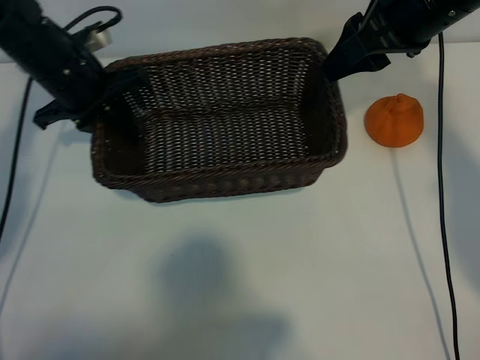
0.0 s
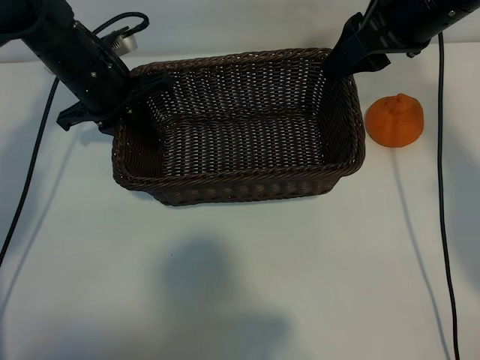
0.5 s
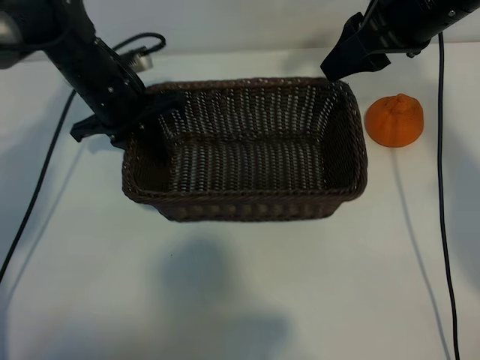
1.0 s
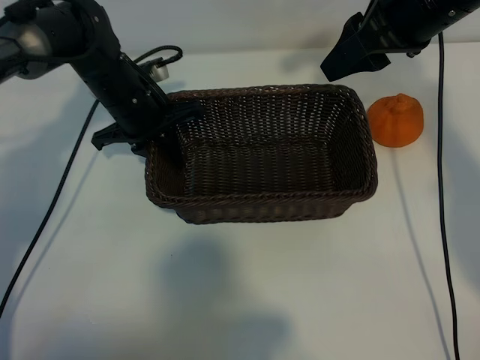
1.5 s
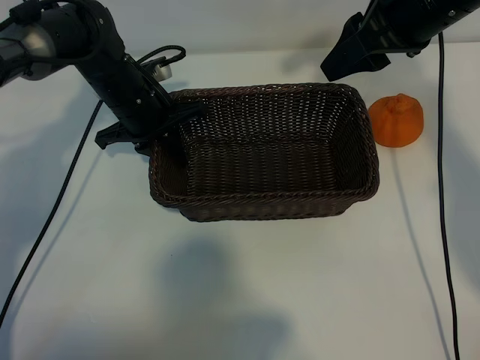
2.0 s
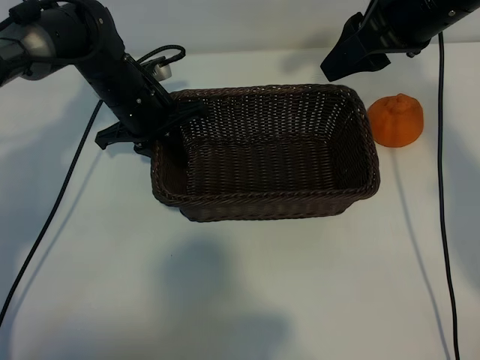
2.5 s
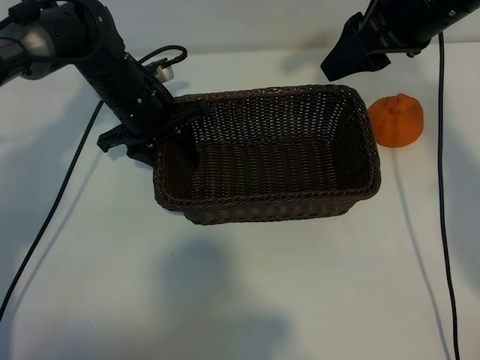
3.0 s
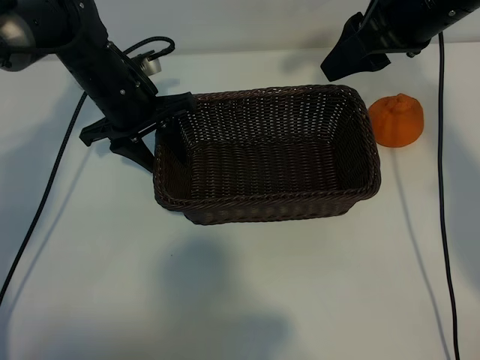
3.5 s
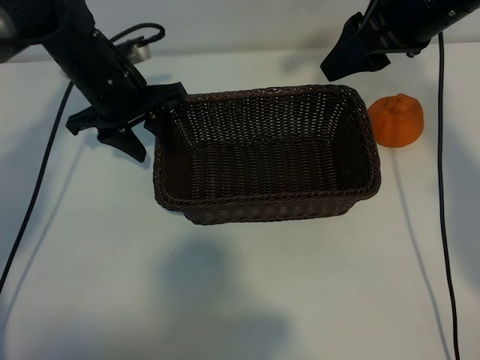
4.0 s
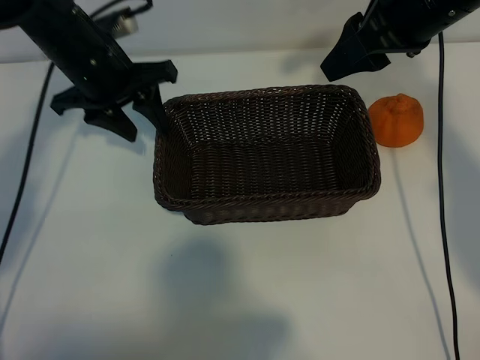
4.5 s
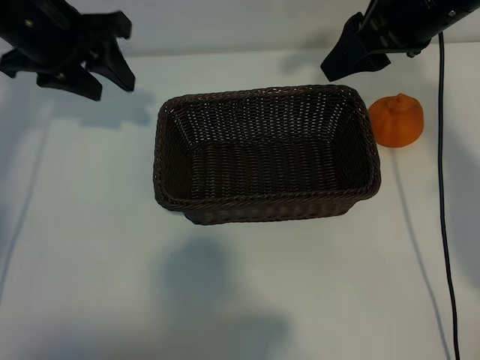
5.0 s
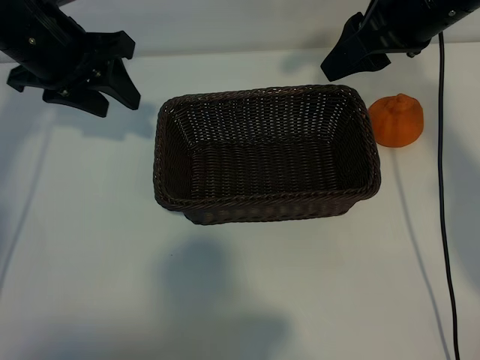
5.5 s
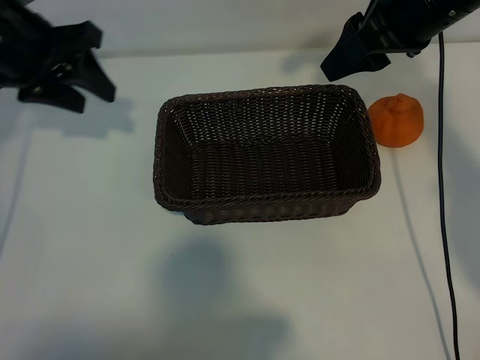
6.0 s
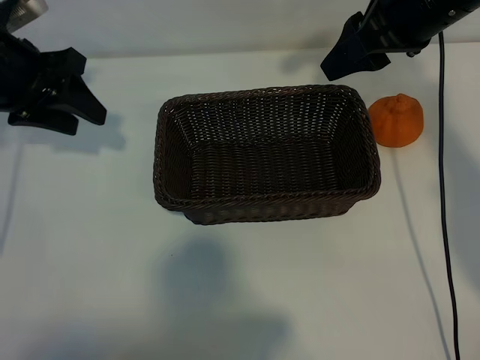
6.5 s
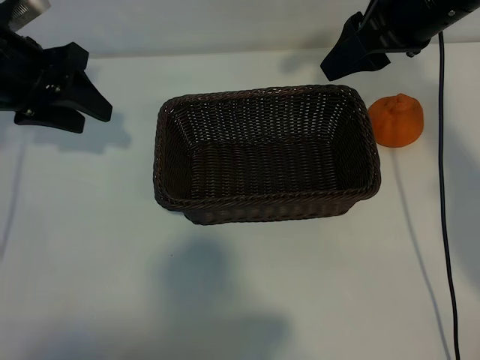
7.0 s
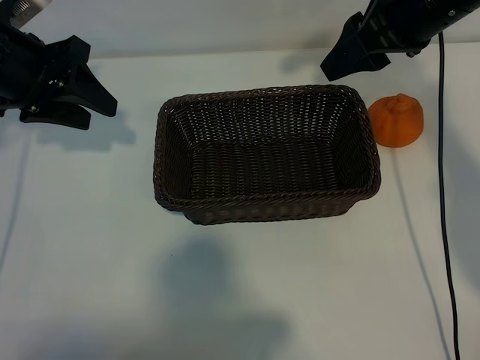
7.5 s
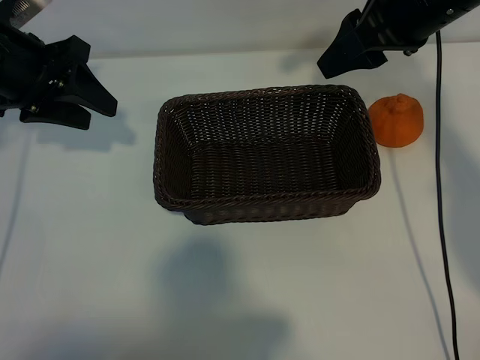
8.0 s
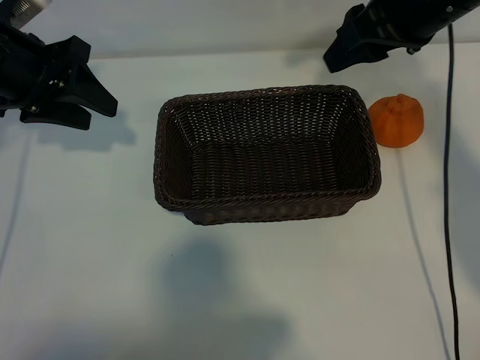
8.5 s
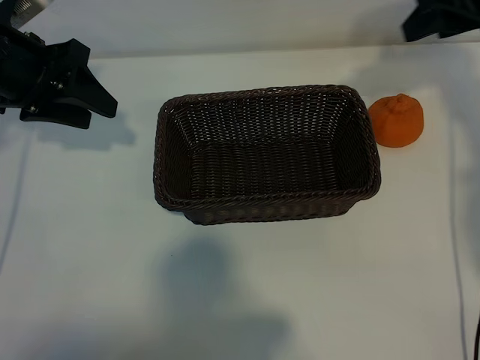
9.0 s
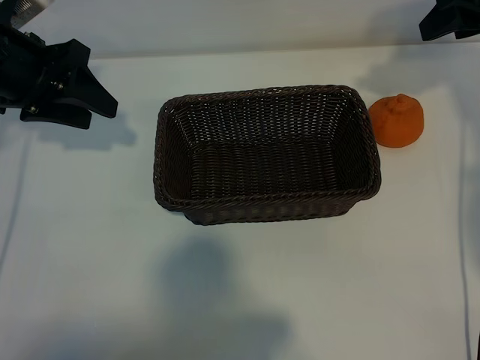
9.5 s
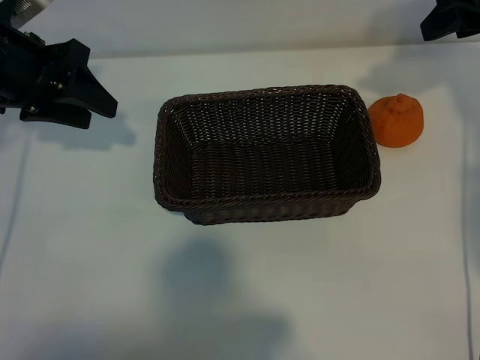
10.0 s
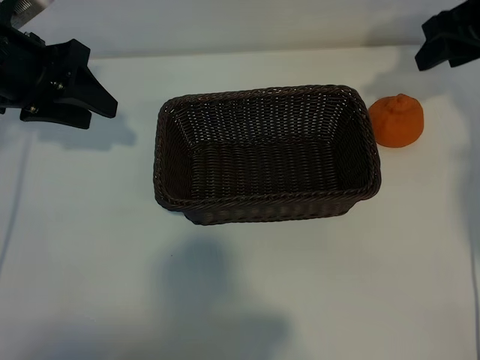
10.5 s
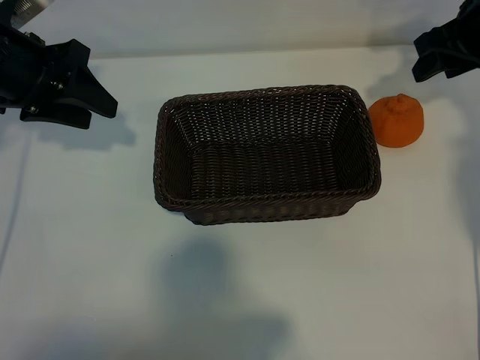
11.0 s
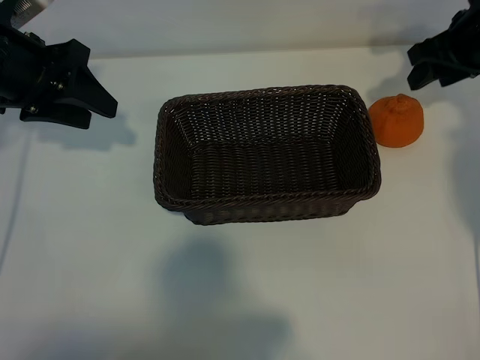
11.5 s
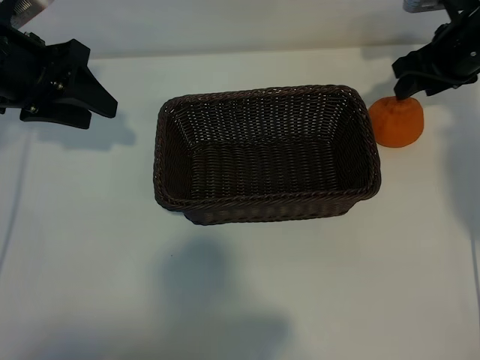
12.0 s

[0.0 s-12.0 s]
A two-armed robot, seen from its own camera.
Task of the whole recording: pick up the orange and put it into the basket.
Step, 0.0 to 2.5 s: Place the basket in the center of view with left gripper.

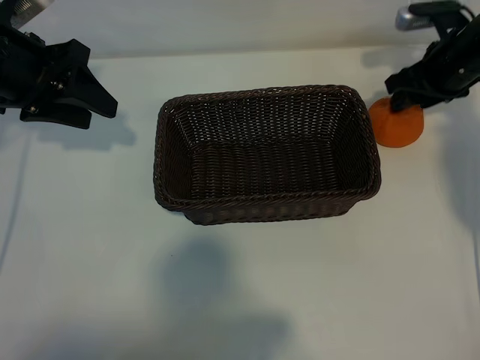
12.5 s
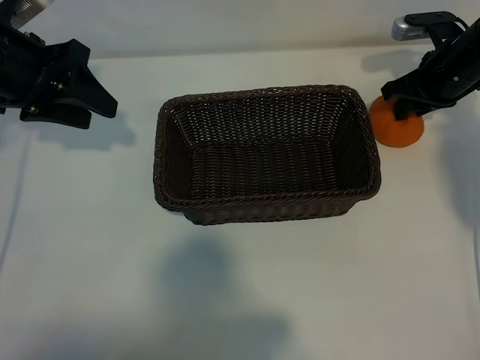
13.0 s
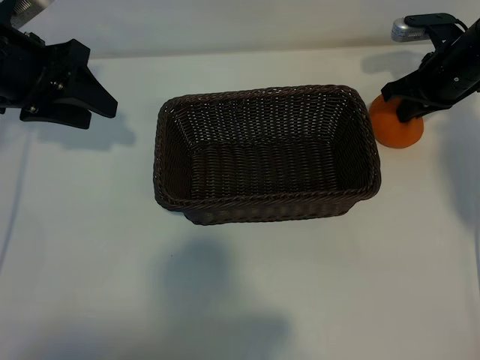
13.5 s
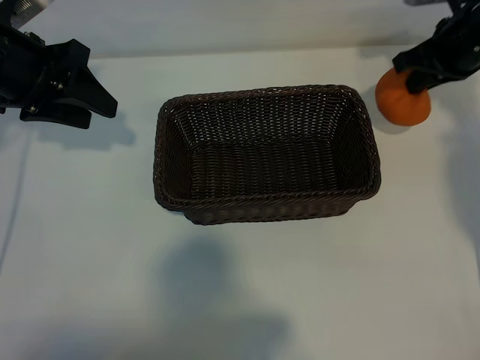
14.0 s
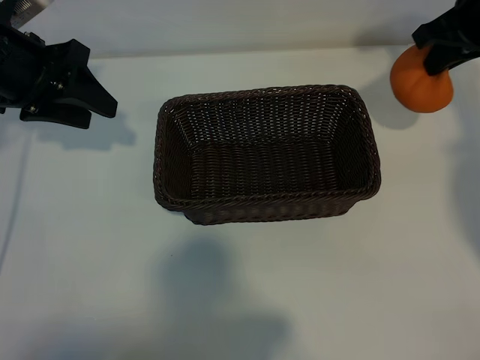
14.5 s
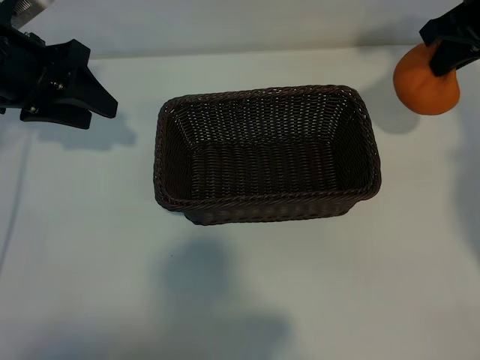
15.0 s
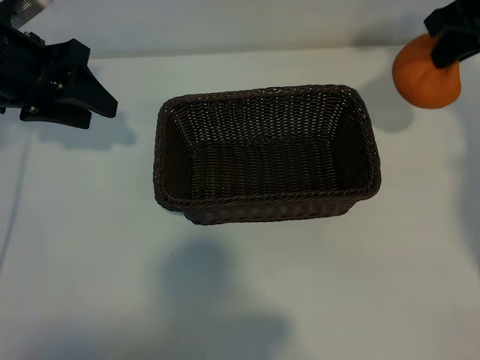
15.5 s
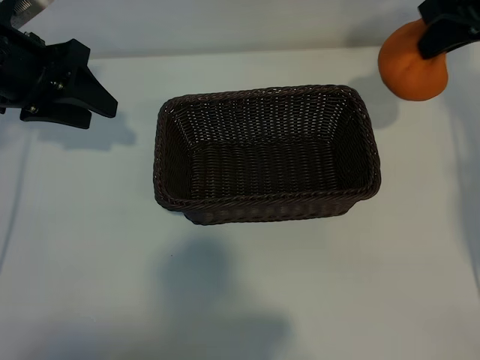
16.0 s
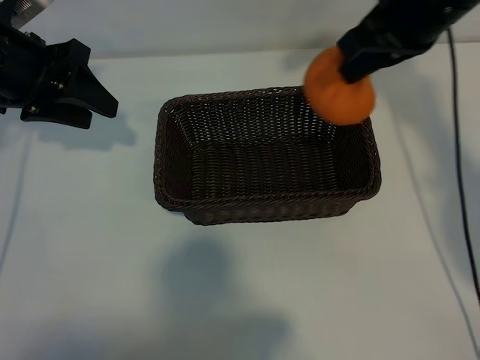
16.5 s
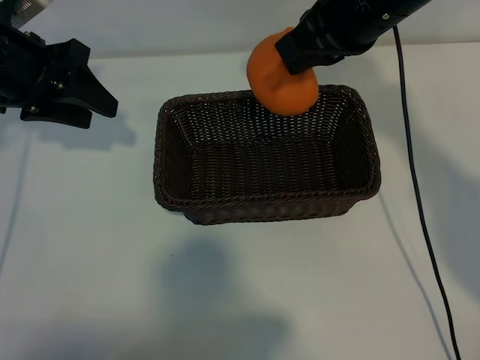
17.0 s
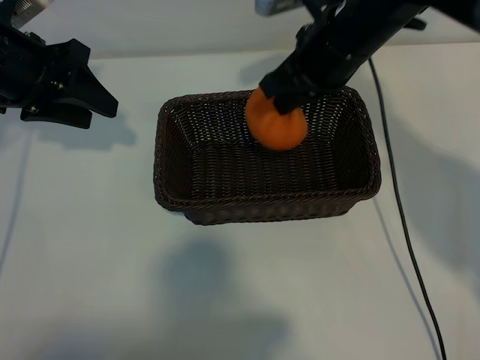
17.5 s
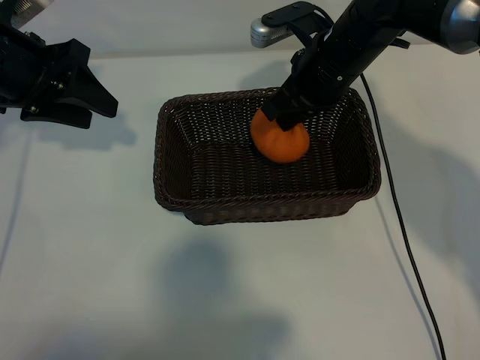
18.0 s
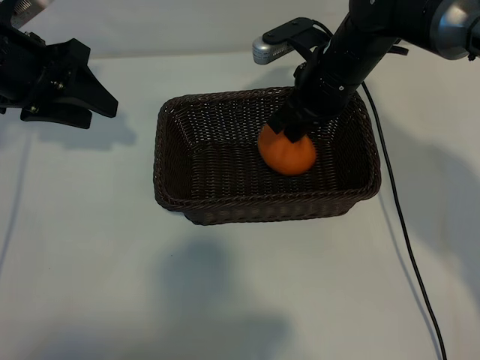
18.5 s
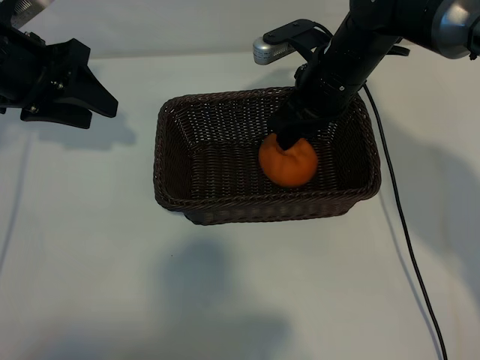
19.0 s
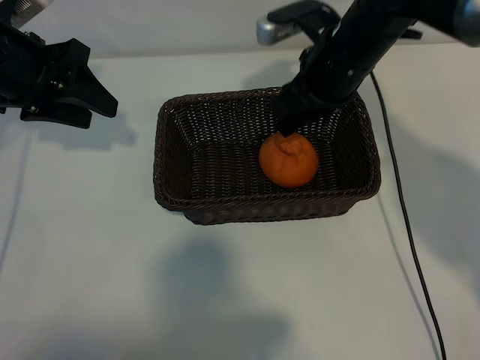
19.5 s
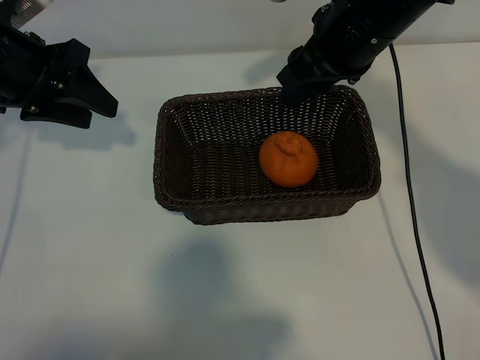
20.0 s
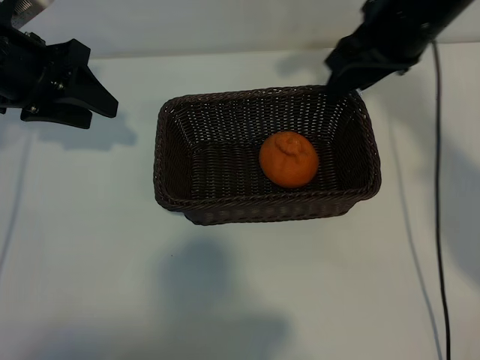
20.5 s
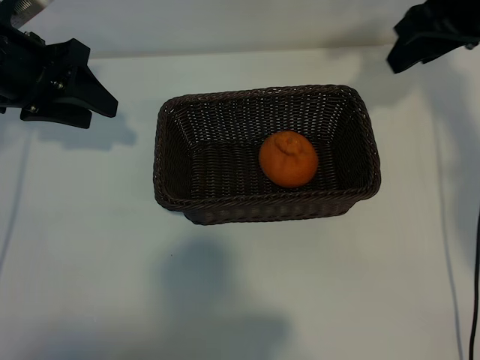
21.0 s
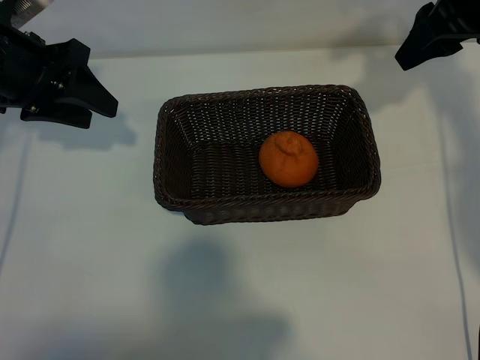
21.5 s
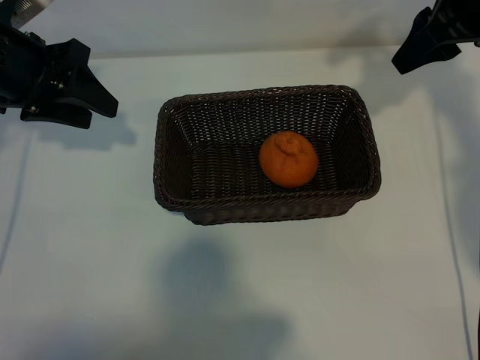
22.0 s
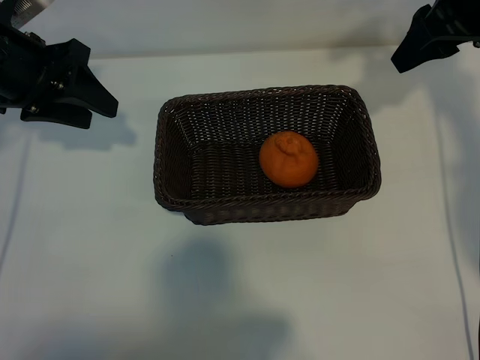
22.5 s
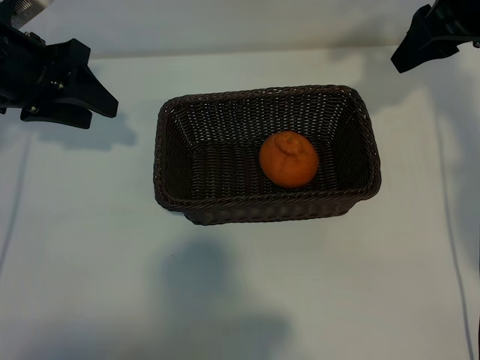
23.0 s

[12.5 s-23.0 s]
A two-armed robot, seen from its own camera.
Task of the whole recording: pick up the orange and put it into the basket.
Step, 13.5 to 19.0 s: Place the orange in the basket with right gripper.
